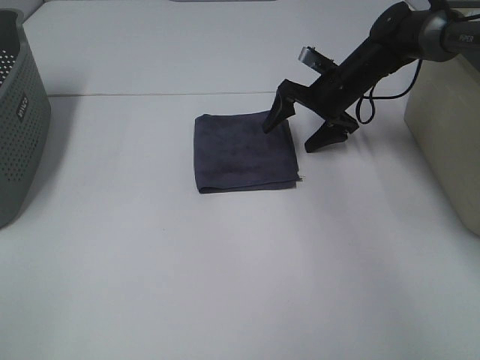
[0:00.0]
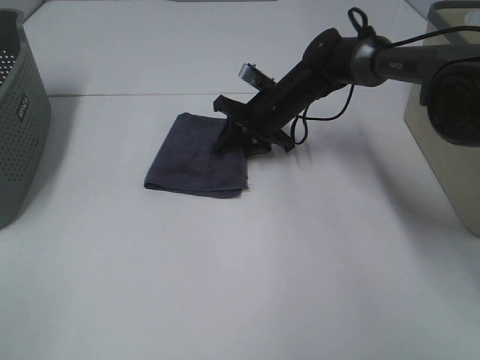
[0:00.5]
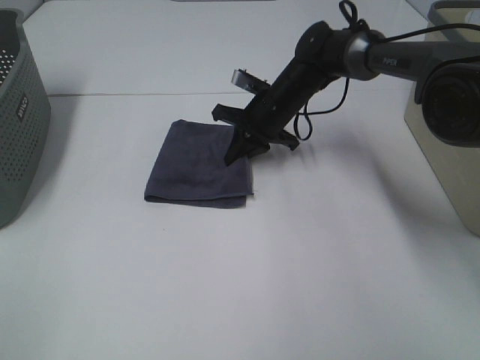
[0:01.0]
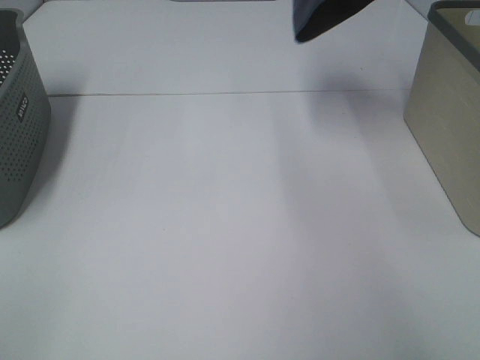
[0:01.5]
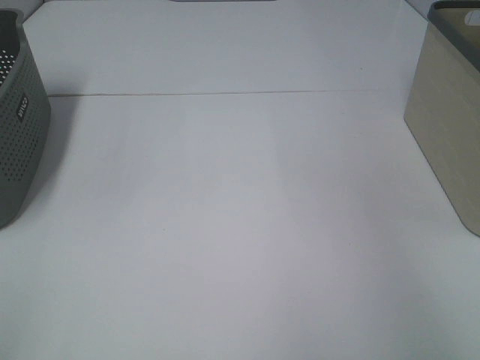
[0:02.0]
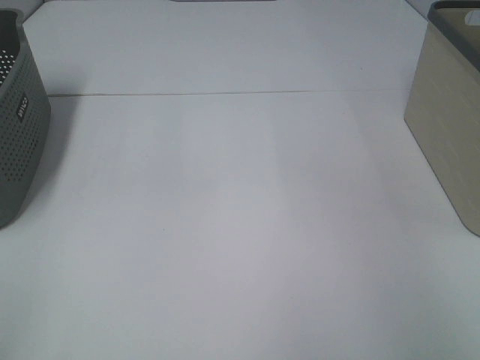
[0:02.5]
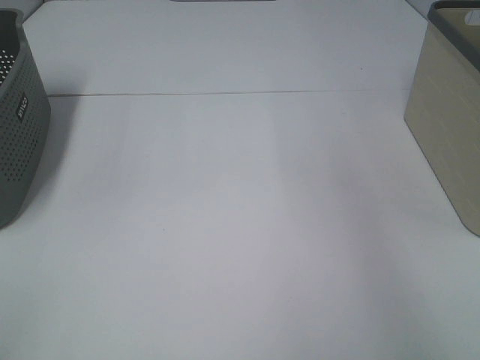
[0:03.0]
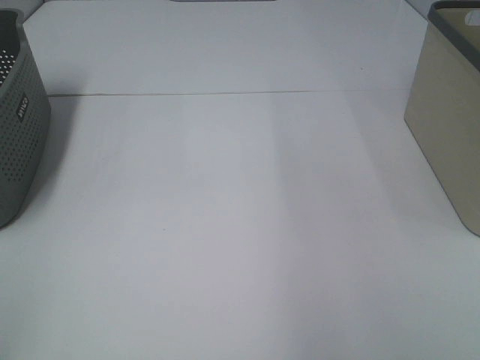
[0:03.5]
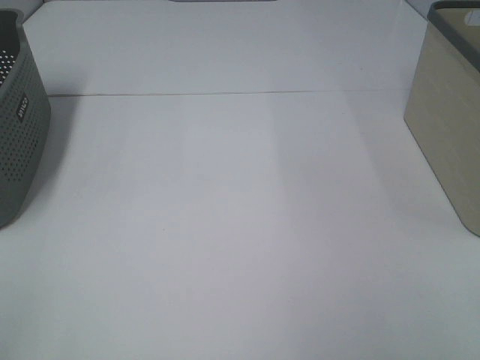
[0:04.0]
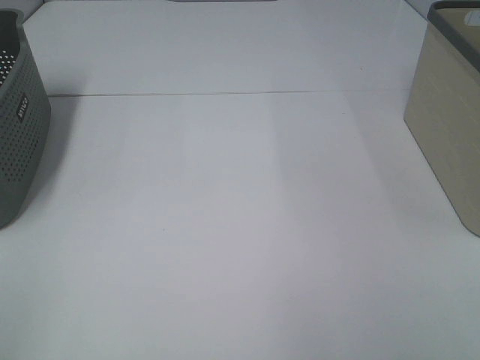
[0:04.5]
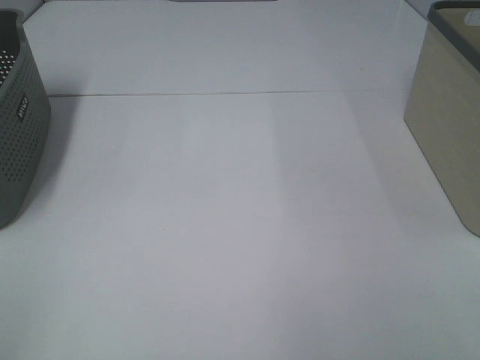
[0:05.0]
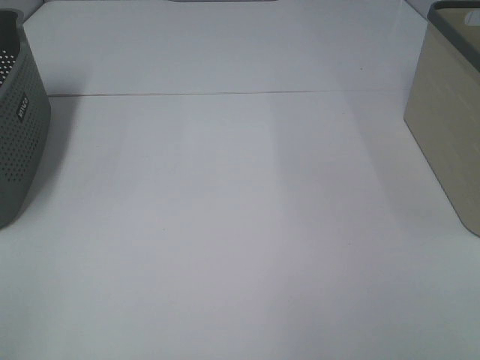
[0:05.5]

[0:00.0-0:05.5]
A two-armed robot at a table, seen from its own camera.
Step, 0:01.0 to 0:02.5: Right hand: place the grey towel in right basket.
0:00.0 to 0:02.0: The right gripper moves upward and to the right, about 40 cm, and closes its fingers.
